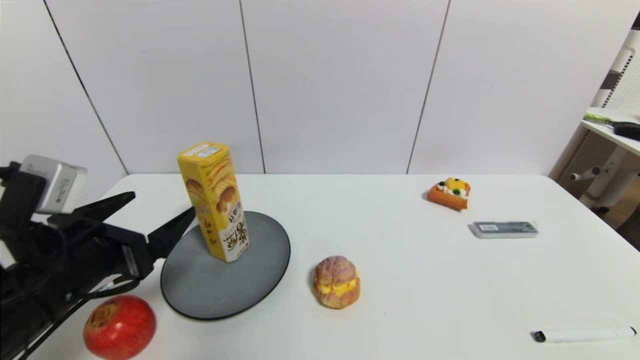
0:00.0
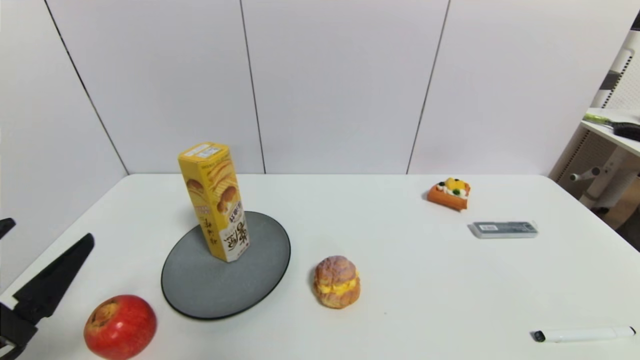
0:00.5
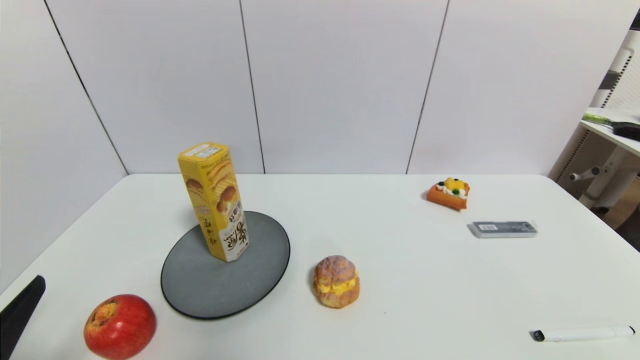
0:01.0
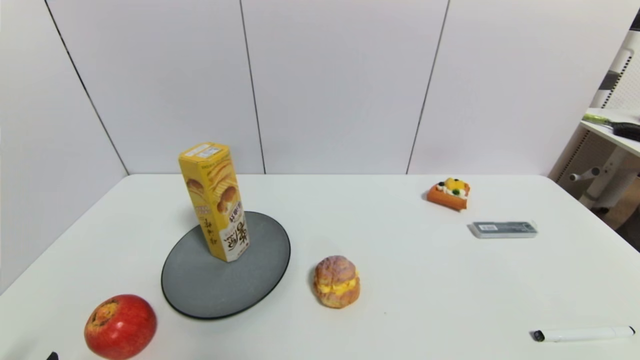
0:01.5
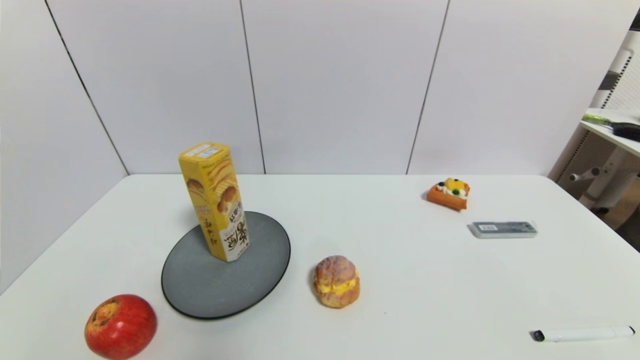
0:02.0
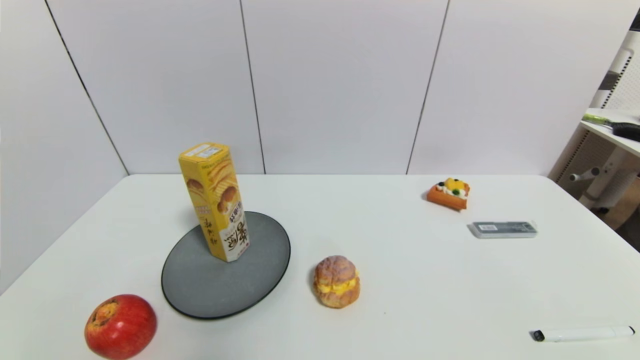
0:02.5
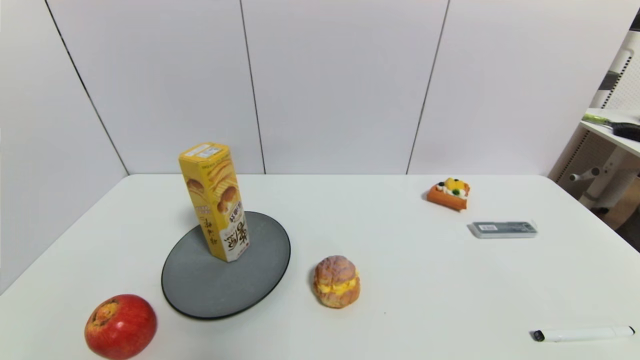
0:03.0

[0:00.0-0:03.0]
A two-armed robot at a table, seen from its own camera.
Task of the whole recording: use a gripper to pick the target object and place on the gray plate.
0:00.0 to 0:01.5: The left gripper heads backward and downward, covering some 15 cm.
